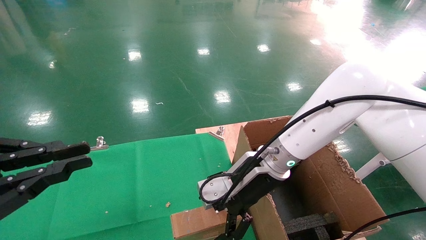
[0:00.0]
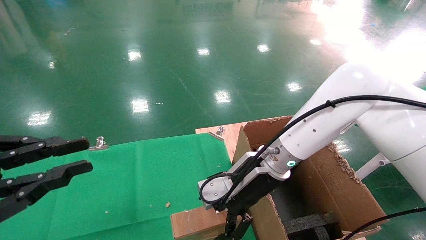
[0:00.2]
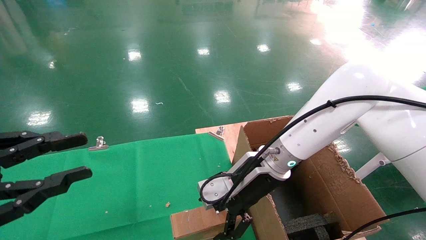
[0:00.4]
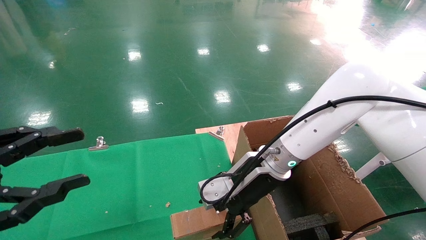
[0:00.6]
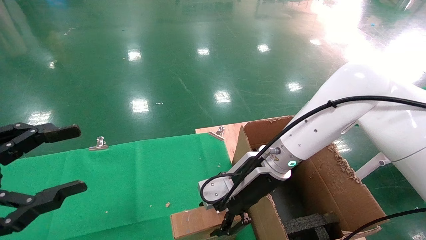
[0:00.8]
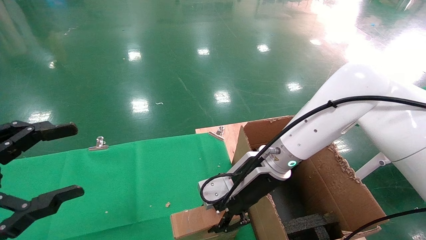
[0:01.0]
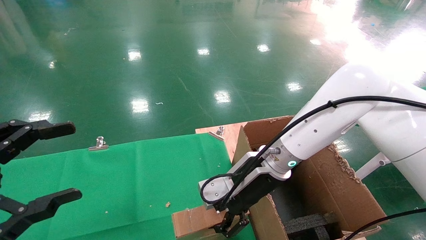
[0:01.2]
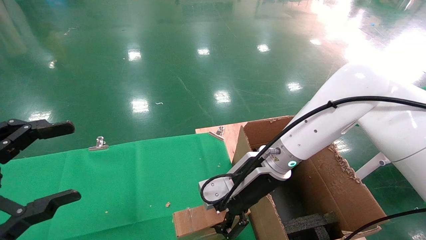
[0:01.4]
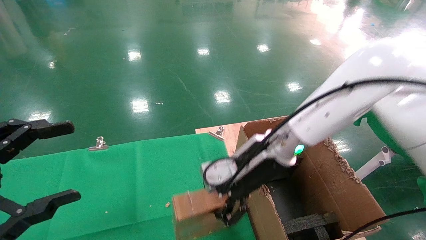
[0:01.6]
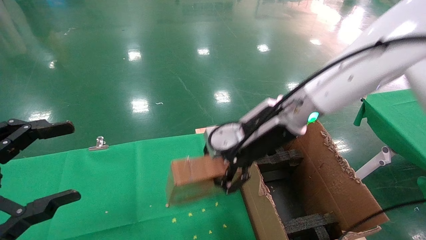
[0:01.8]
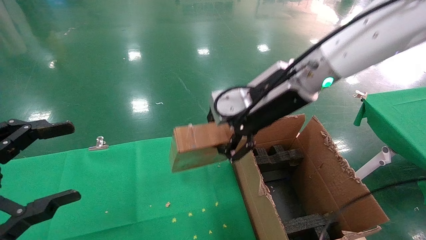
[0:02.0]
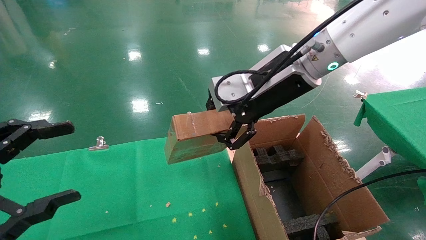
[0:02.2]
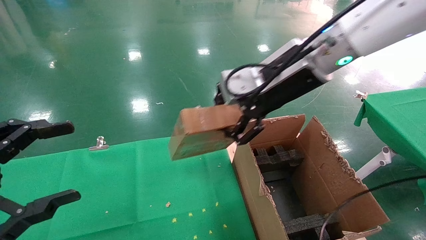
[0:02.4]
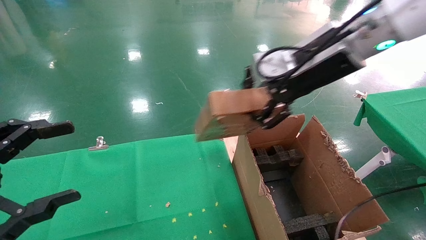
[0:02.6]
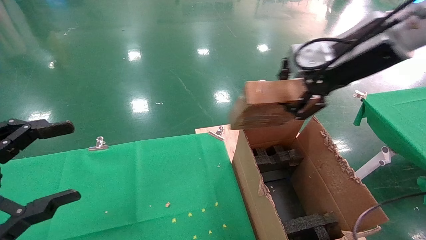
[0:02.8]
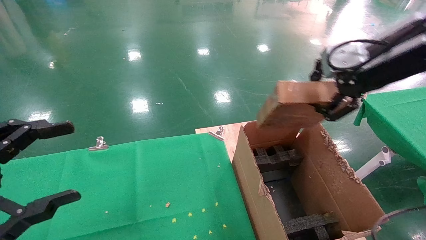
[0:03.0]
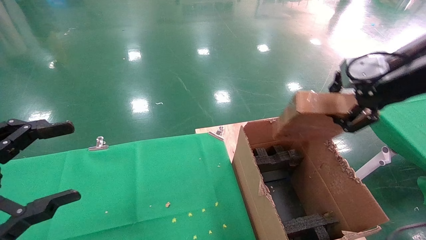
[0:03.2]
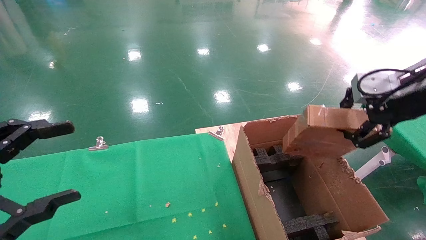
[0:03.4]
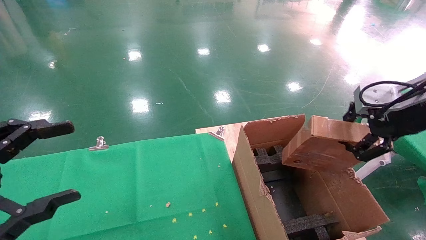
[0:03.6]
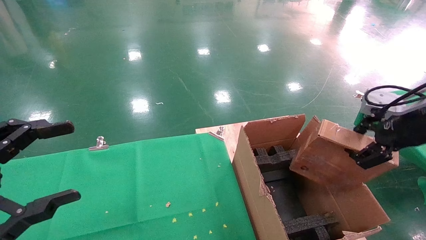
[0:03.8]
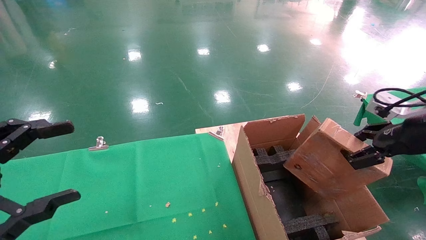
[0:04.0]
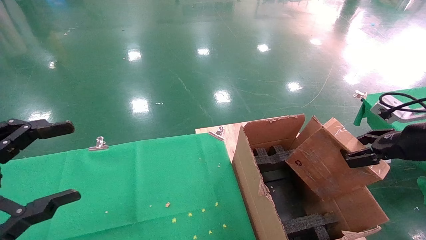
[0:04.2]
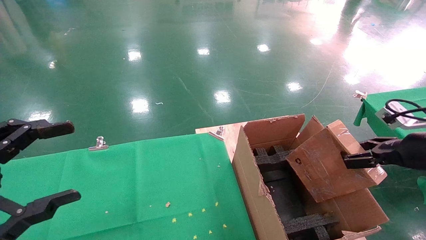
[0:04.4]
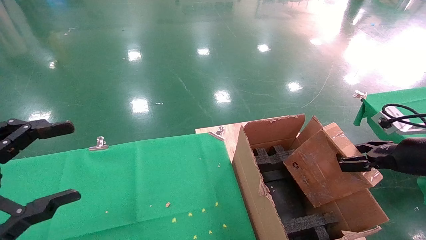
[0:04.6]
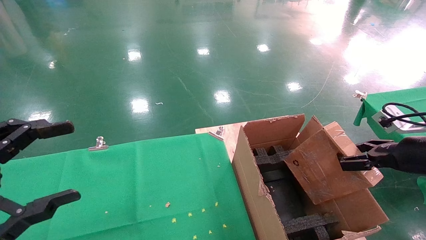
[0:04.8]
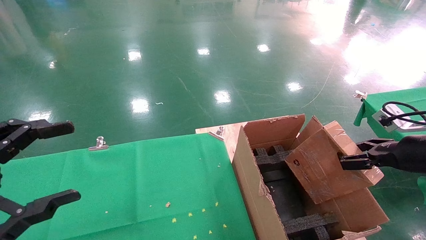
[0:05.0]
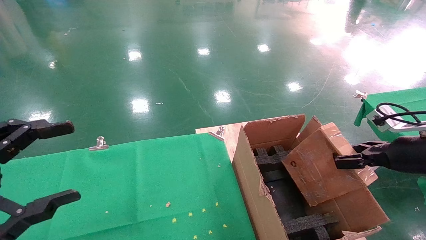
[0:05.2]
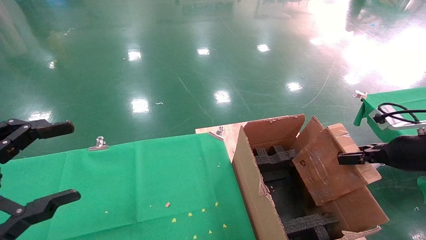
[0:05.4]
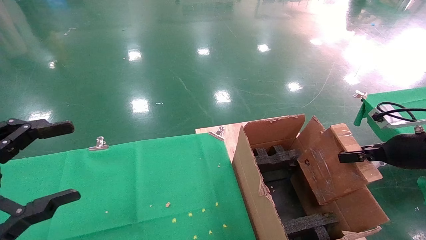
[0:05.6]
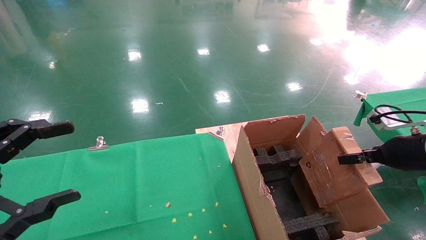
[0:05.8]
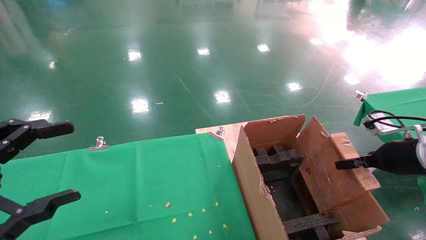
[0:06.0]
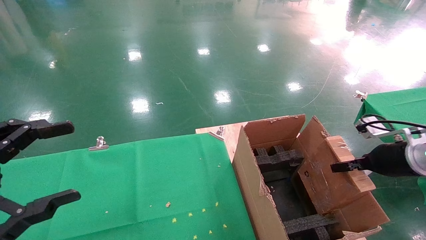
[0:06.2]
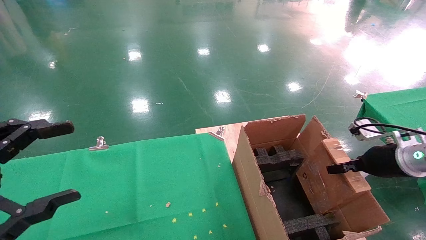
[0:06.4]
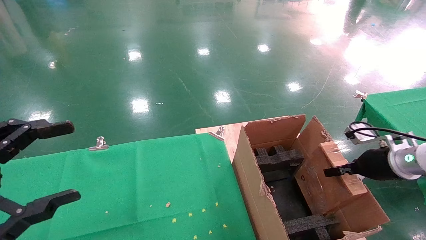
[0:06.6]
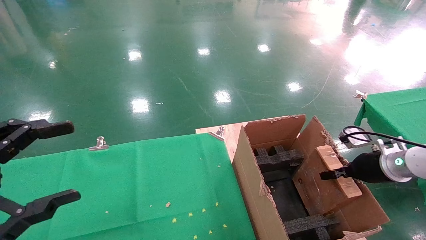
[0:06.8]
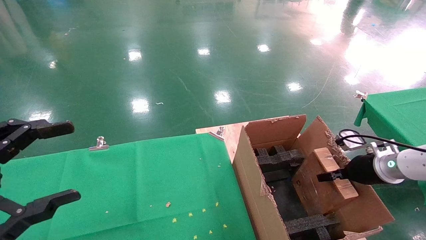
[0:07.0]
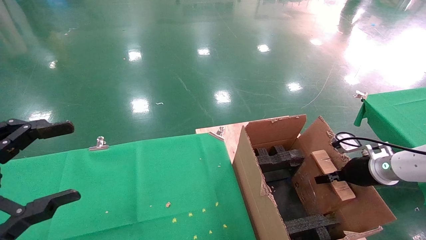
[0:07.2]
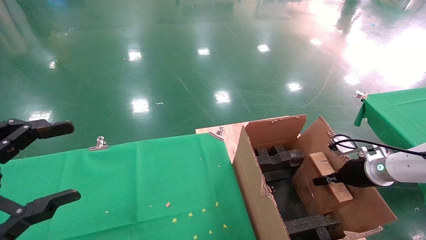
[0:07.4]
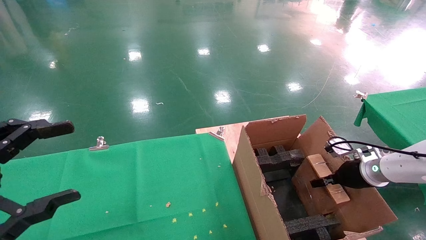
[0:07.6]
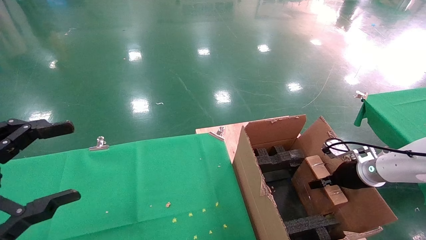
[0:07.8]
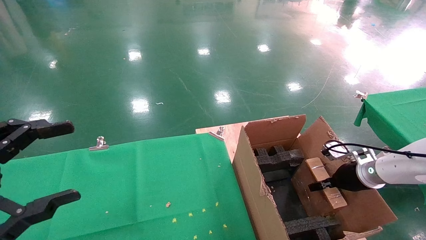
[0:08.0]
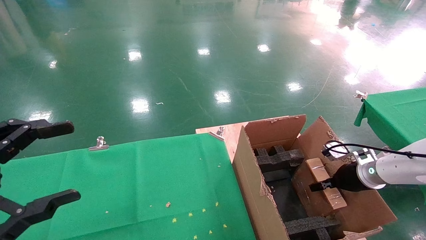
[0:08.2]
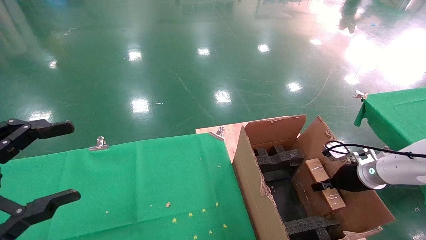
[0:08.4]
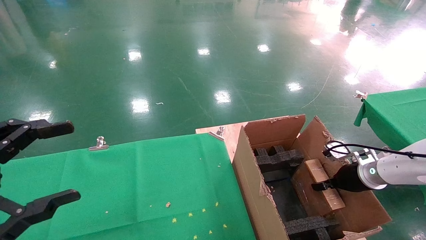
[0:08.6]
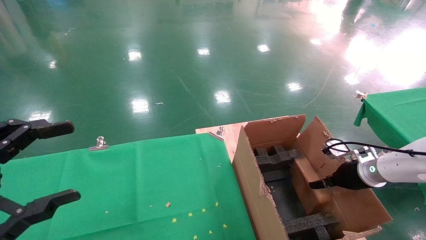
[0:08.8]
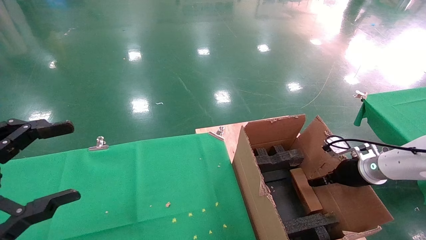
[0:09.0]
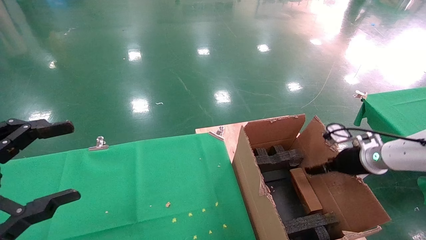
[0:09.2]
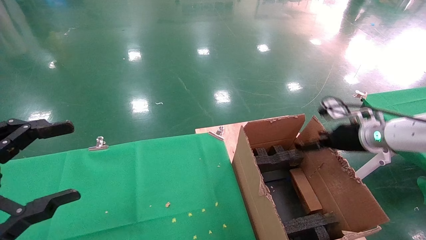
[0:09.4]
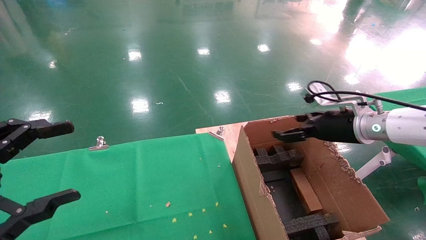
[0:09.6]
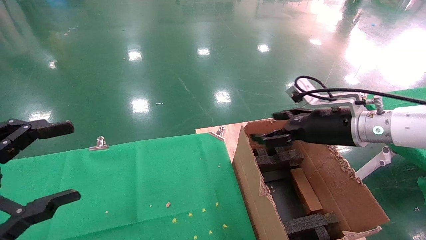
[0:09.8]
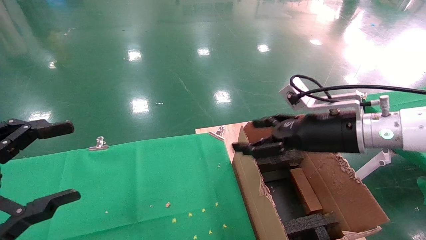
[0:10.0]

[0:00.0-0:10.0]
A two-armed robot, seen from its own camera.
Task of the whole recording: using a robotic arm to pick up a cardboard box and palace it the carton.
Step, 0:01.2 to 0:09.8: Place the mouse and the power cord paper box into the container.
0:00.0 to 0:01.4: The left gripper opens up; the right gripper closes.
0:01.4 to 0:02.8: The right gripper travels upward and to the right by roughly 25 cm.
0:02.8 to 0:04.2: The right gripper heads downward and to the right, covering approximately 20 cm.
0:04.2 to 0:05.8: The right gripper is displaced downward by some 5 cm.
0:05.8 to 0:07.2: The right gripper is displaced downward and forward by about 10 cm.
0:07.2 to 0:08.6: There are only small adjustments of the grippers.
0:08.6 to 0:10.0: The right gripper travels to the left, upward and backward by some 25 cm, and opens up.

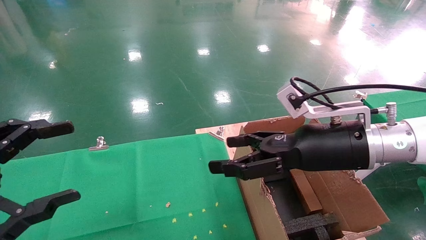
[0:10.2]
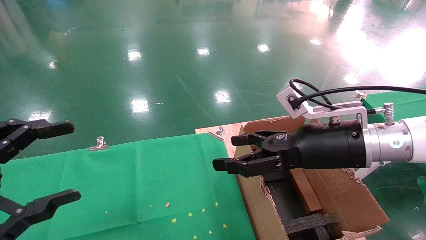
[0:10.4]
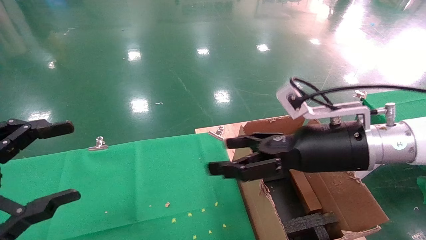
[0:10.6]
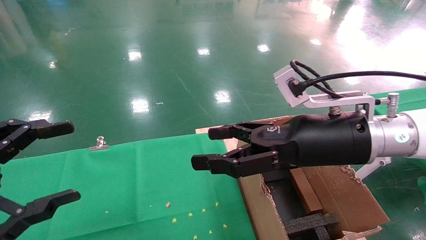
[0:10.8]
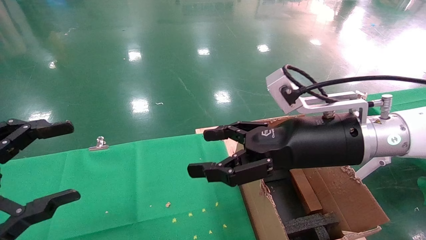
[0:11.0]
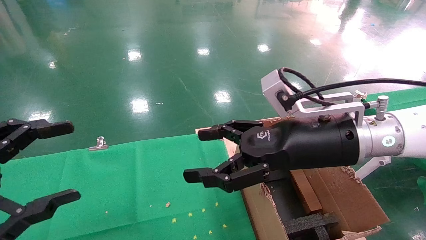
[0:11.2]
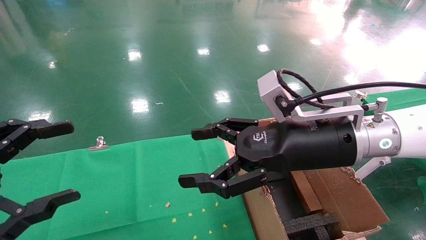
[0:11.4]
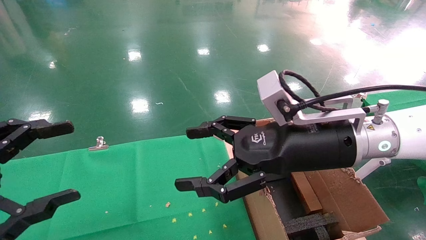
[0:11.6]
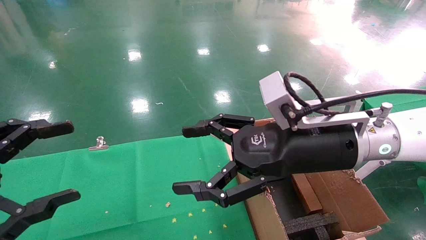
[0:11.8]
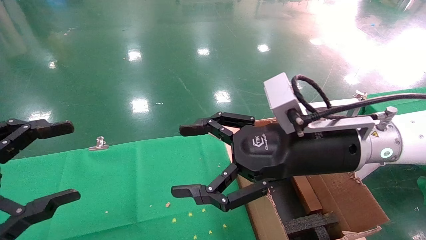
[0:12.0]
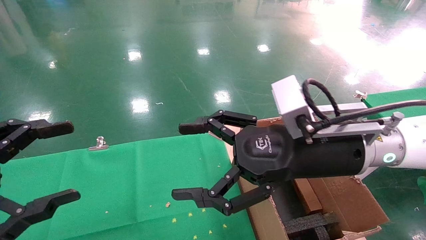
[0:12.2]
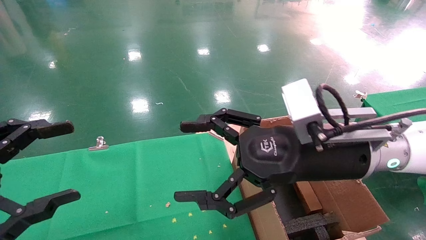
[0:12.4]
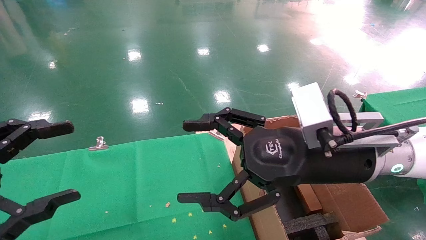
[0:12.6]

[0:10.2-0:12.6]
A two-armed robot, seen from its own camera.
Task of the whole recording: using a robotic arm to pick up a cardboard box and palace it the carton.
0:10.2 to 0:11.4: The right gripper is displaced to the left by approximately 5 cm.
